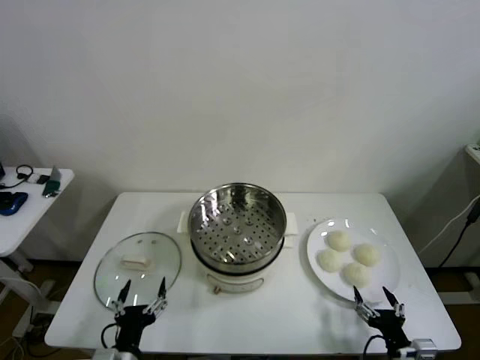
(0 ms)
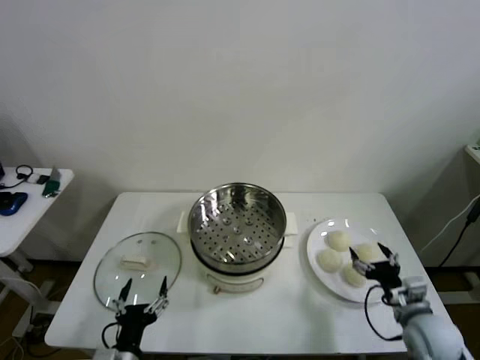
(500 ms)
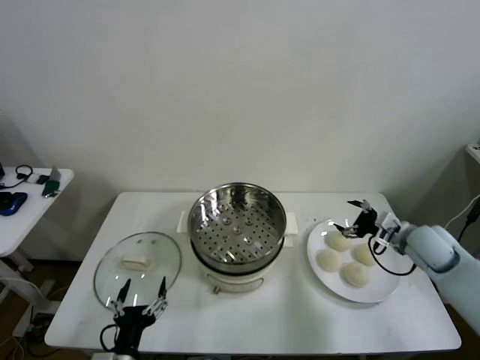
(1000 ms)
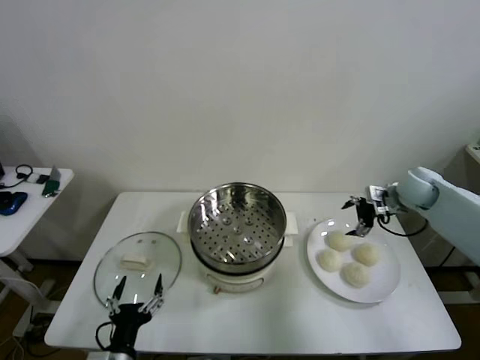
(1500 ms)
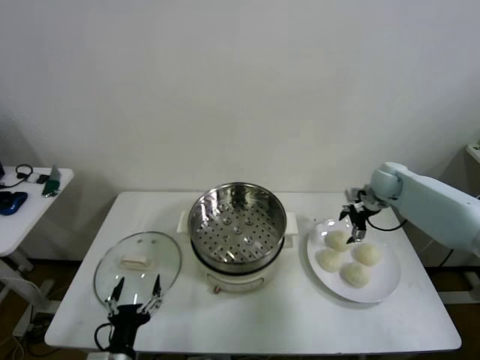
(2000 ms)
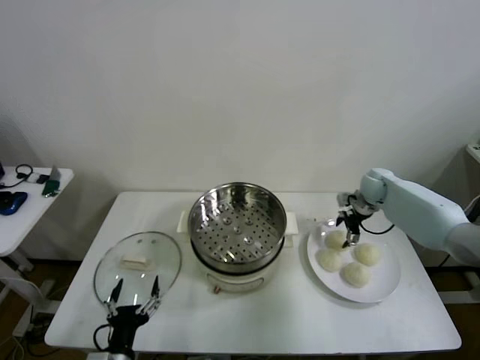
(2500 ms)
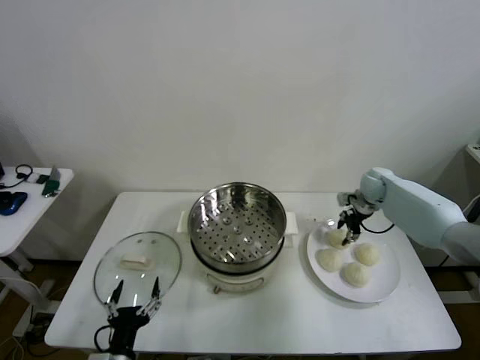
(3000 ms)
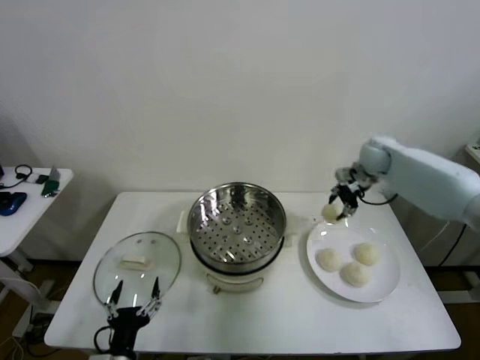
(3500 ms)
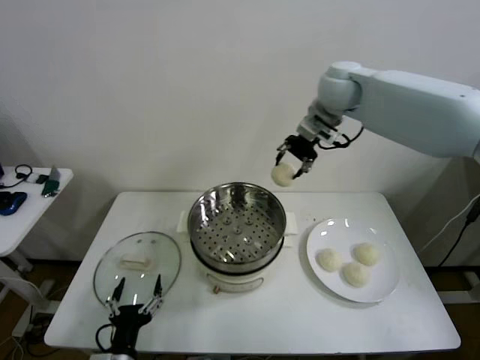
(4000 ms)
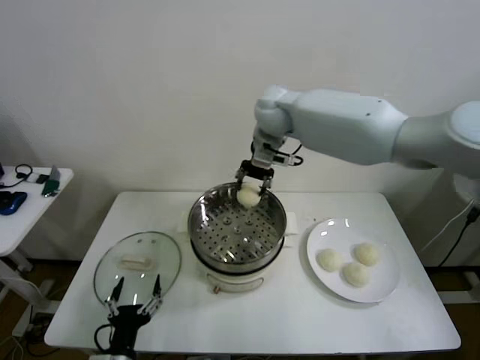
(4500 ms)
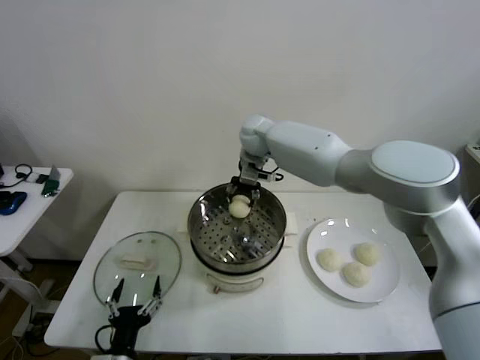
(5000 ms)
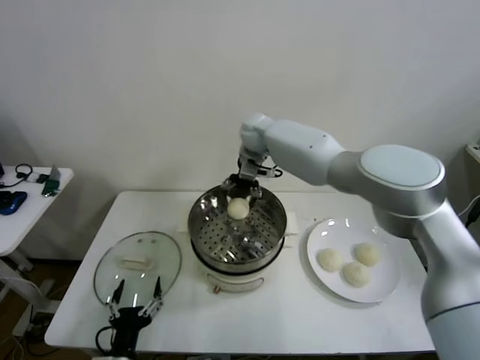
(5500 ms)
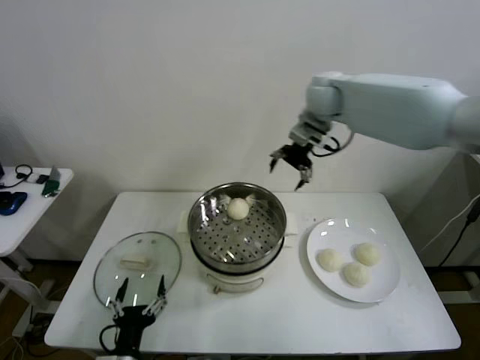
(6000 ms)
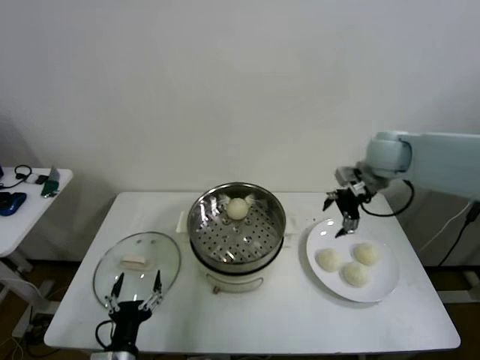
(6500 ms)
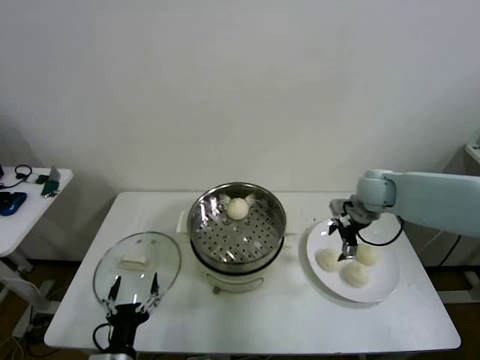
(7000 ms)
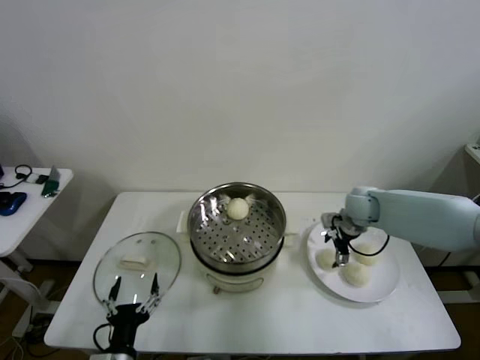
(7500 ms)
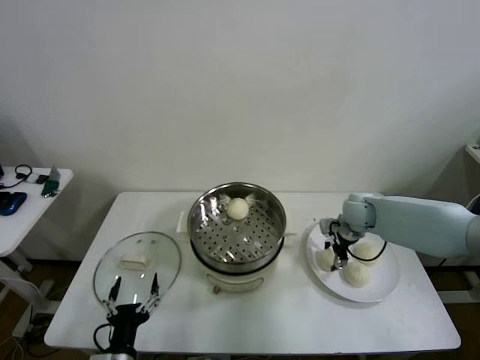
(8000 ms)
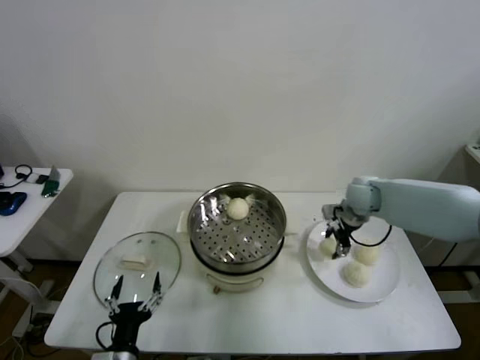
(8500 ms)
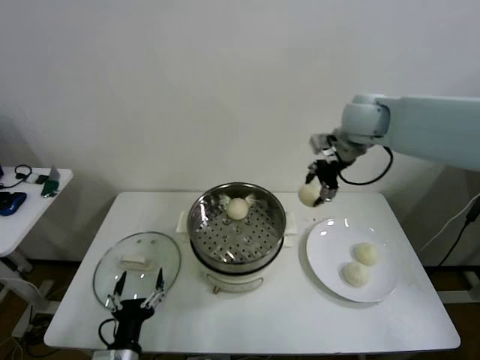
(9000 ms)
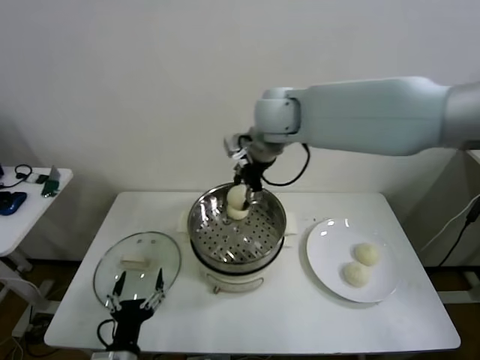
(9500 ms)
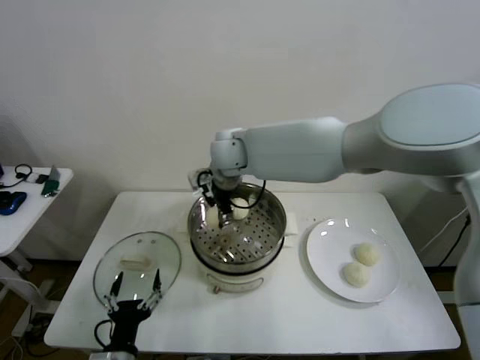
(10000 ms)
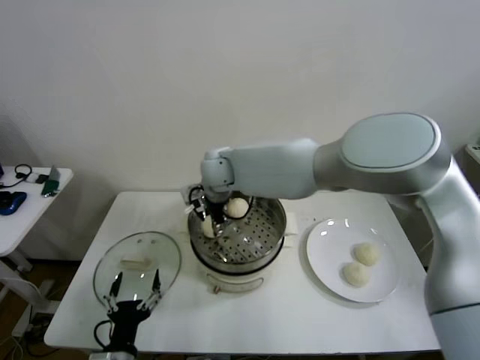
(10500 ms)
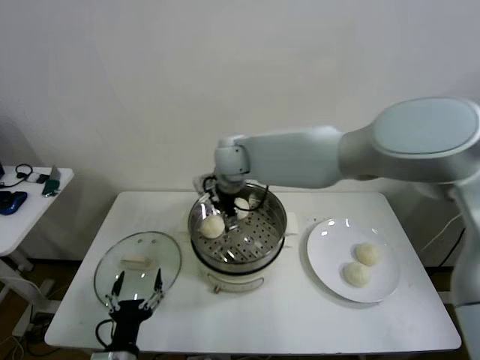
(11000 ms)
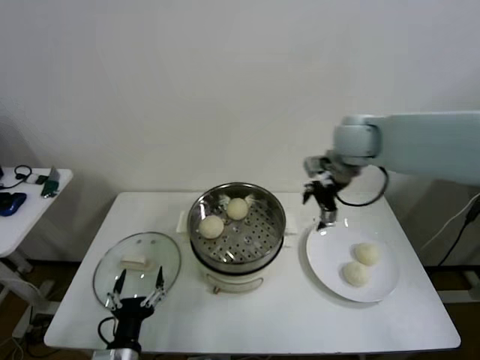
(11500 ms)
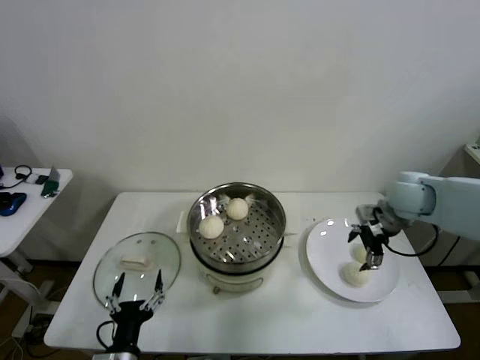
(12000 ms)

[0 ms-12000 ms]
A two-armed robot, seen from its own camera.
Step, 0 ms to 2500 ms: Grasp the baozi in the plate with right gripper.
Step, 3000 ms to 5000 ms: Place the baozi on the steamer with right gripper.
Step, 5500 ms to 7500 ms: Grasp the baozi in the plate with right gripper.
Step, 8000 ms to 10500 ms: Place the baozi on the steamer with right gripper.
2000 ms to 4000 ms: The right gripper heads upward and to the left, covering roughly 35 cm, and closes its fingers.
4000 ms to 6000 ms: The right gripper goes about 5 cm to the right, and opens its fingers.
6000 ms to 8000 ms: The right gripper travels downward by roughly 25 cm, and closes its fingers.
8000 ms to 10000 ms: The right gripper moves to the left and upward, about 40 cm.
10000 ms to 12000 ms: The right gripper is displaced to the right by roughly 40 cm, and opens.

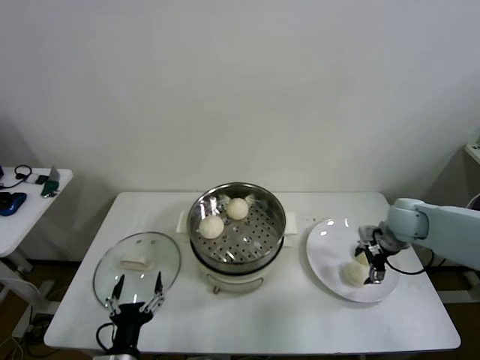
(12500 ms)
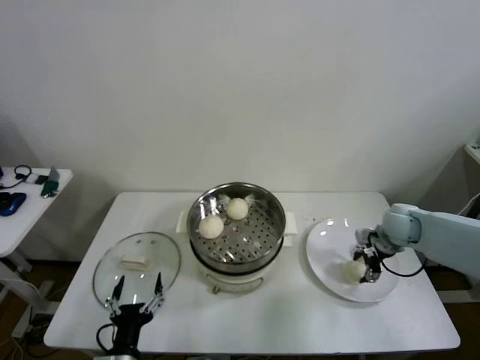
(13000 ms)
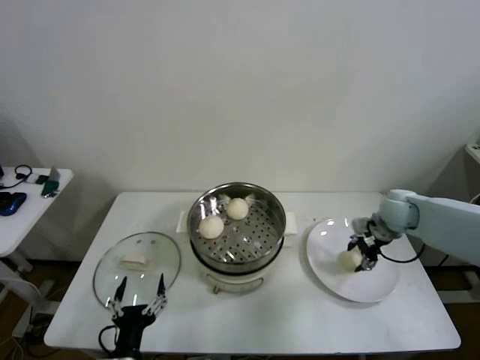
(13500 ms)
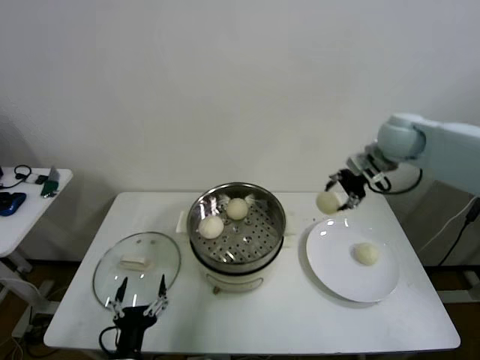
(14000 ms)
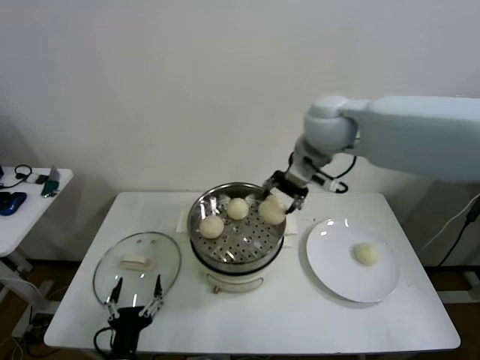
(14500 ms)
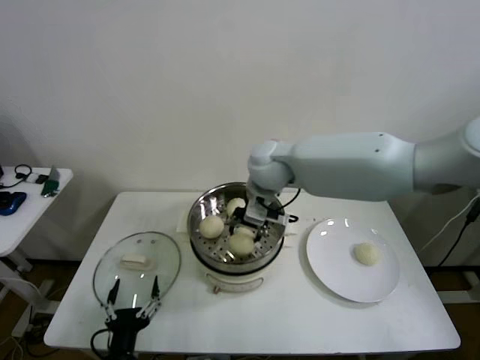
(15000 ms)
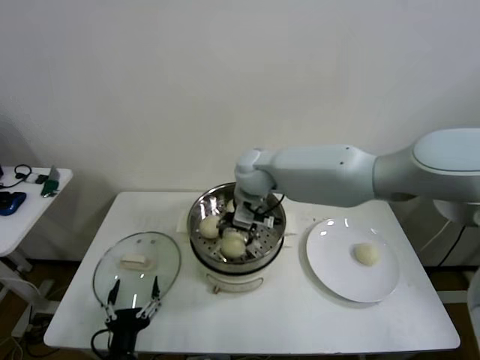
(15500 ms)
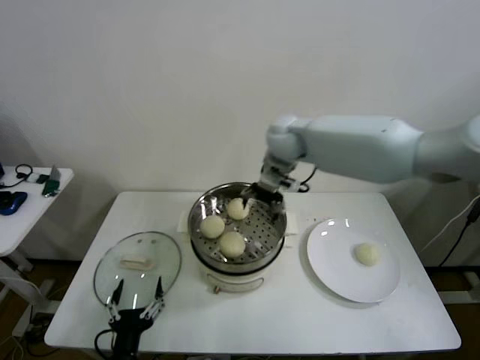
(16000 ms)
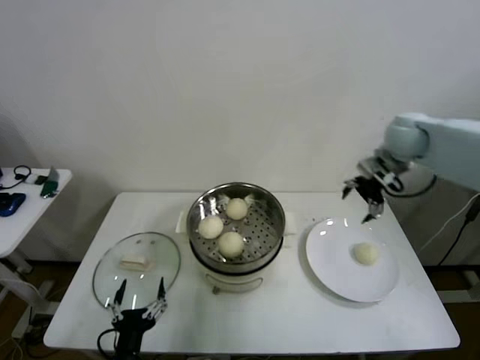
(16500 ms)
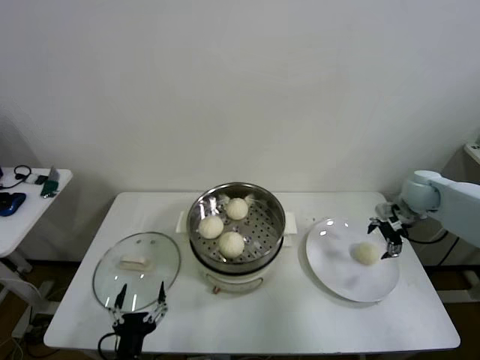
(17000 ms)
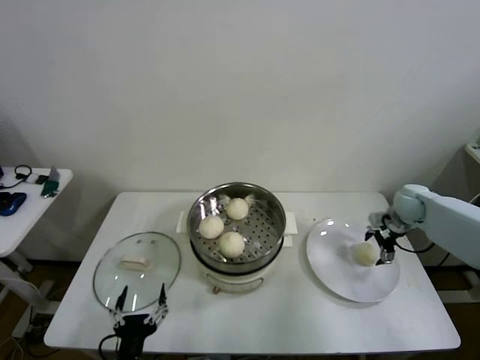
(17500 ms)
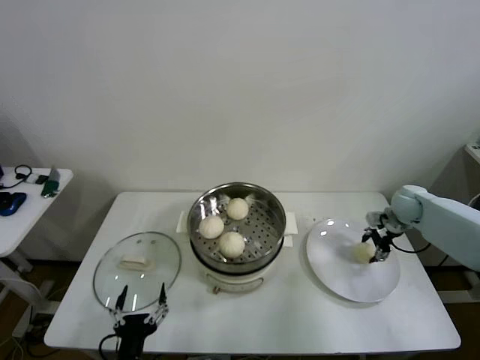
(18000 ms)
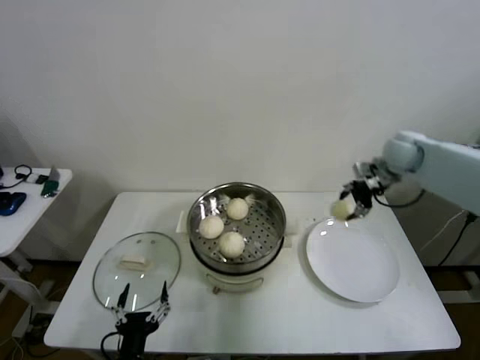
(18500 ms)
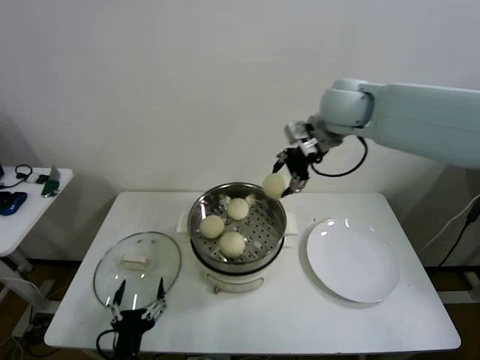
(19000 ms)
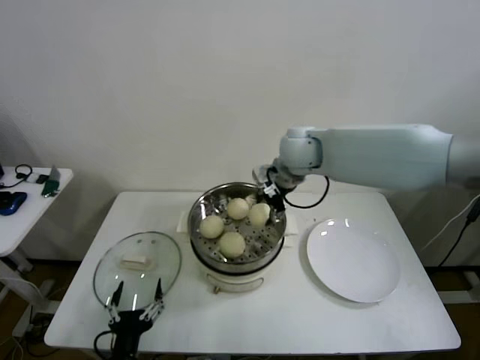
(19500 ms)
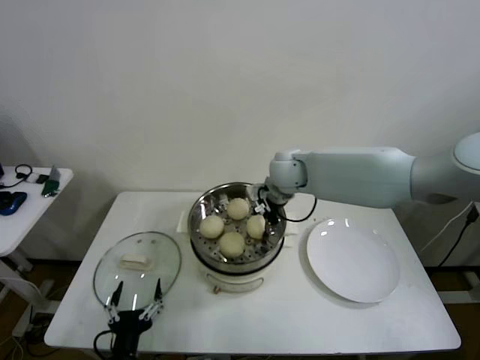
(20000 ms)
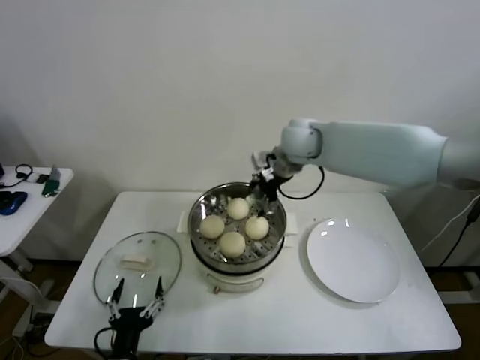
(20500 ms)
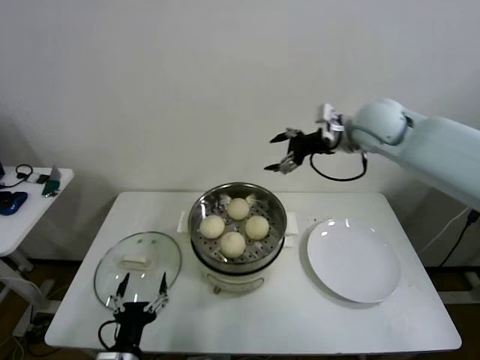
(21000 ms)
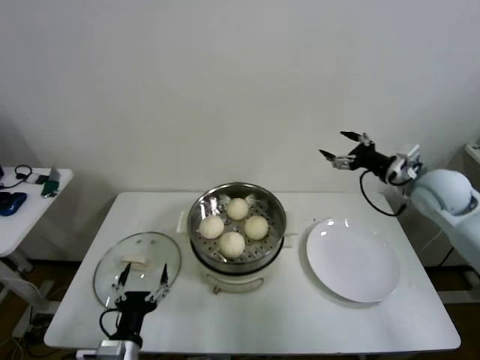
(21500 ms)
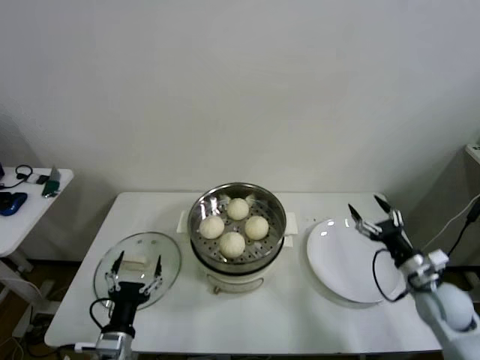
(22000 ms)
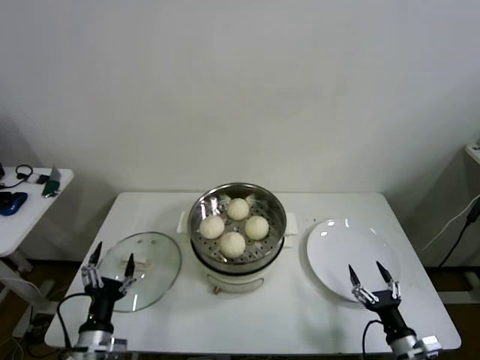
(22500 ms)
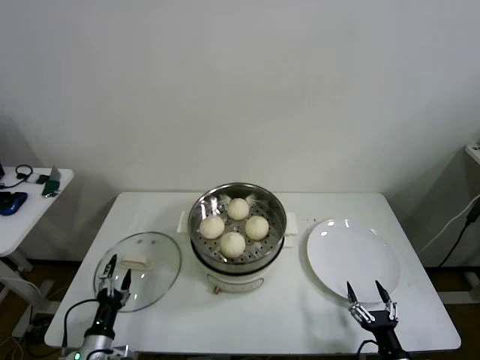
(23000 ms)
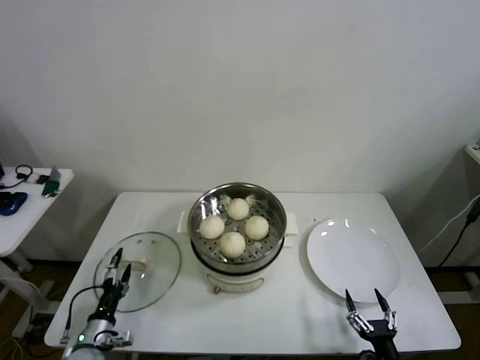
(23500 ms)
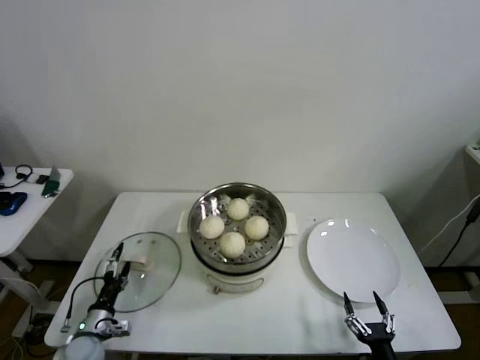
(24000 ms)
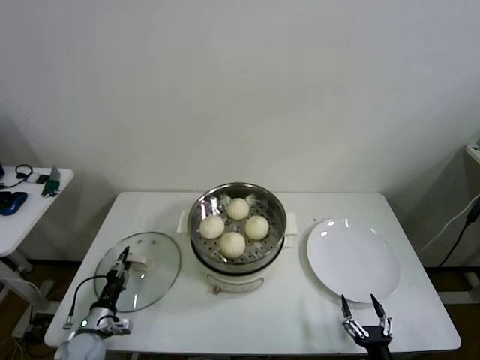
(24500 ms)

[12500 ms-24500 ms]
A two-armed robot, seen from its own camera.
Step, 13000 ms to 15500 ms: Place the baozi on the steamer with right gripper.
Step, 16000 ms to 17500 ms: Grasp the baozi in the plate with right gripper.
Step, 18500 ms to 20000 ms: Place the baozi on the steamer with right gripper.
12500 ms to 14500 ms: The right gripper is displaced to the left and upward by about 35 cm, and closes up.
14500 ms to 16500 ms: The right gripper travels to the right by about 20 cm, and opens its fingers.
16500 ms to 18500 ms: The right gripper travels downward and back again, roughly 20 cm each way, and closes its fingers.
18500 ms to 20500 ms: The right gripper shifts some 25 cm to the left, and opens up.
20500 ms to 22500 ms: The left gripper shifts some 10 cm to the left and forward; the right gripper shifts about 60 cm backward, downward and to the right.
22500 ms to 24500 ms: The right gripper shifts approximately 10 cm backward and to the left, while the left gripper moves downward, to the left and forward, about 15 cm, and closes up.

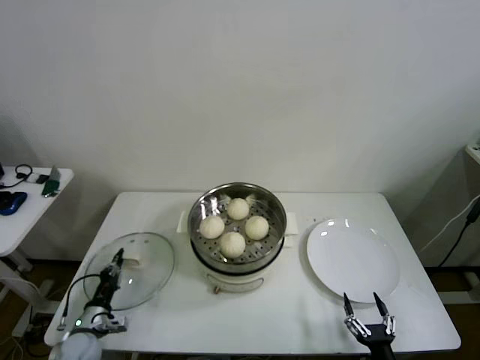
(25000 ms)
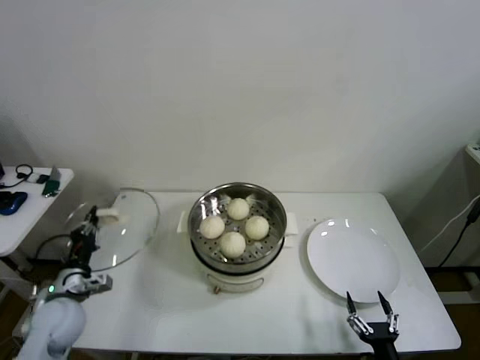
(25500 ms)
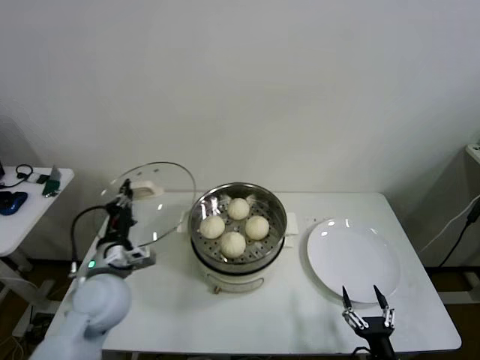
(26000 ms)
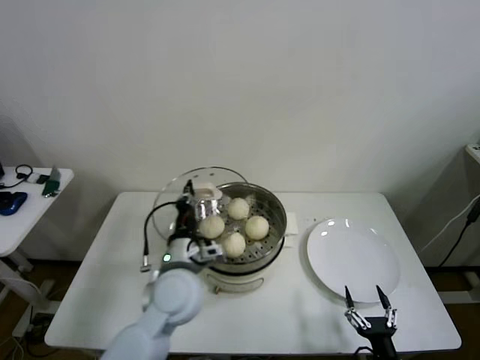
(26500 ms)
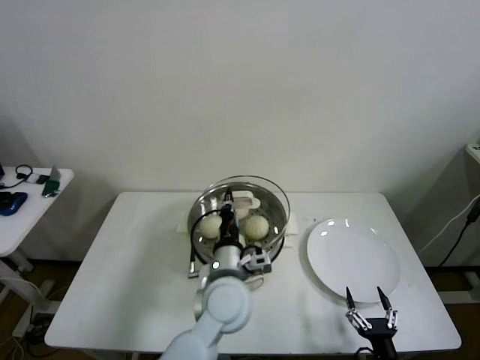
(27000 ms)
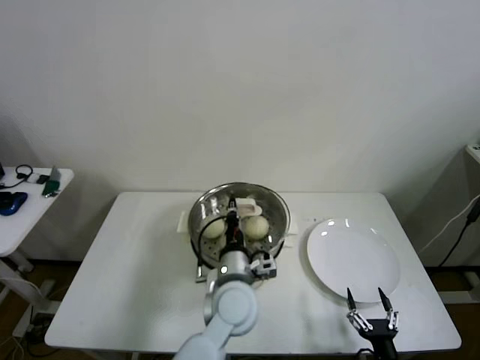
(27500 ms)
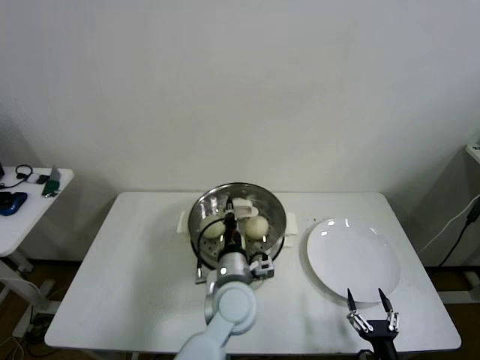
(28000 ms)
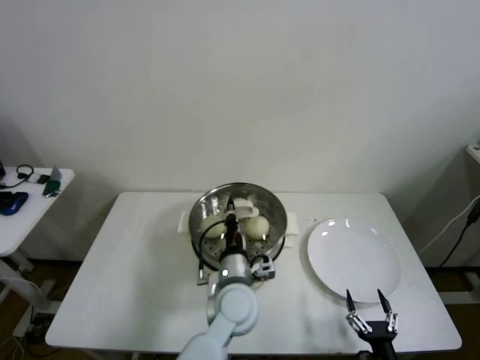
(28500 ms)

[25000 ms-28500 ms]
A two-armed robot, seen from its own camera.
25000 ms to 27000 ms: The left gripper shifts about 40 cm to the right and upward.
27000 ms to 28500 ms: The left gripper travels downward by roughly 5 cm.
